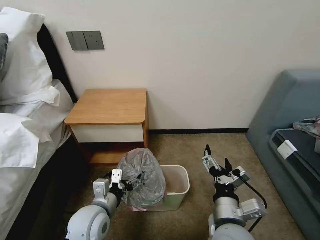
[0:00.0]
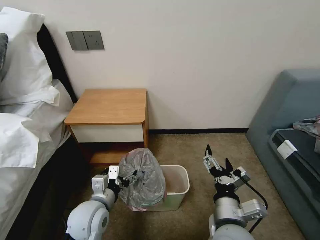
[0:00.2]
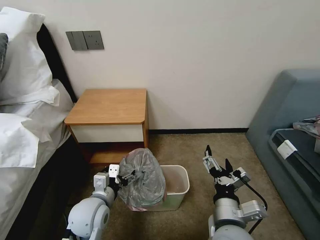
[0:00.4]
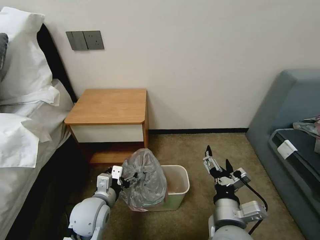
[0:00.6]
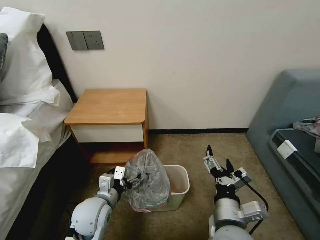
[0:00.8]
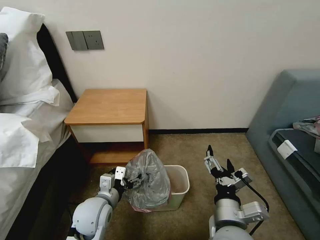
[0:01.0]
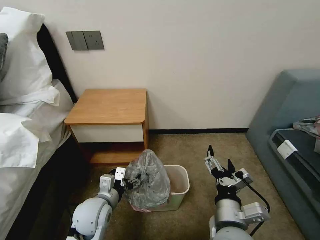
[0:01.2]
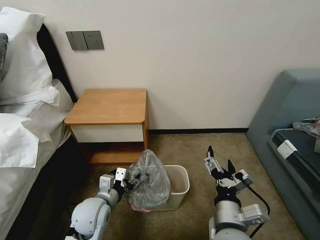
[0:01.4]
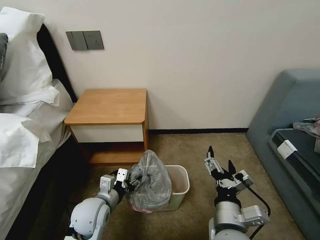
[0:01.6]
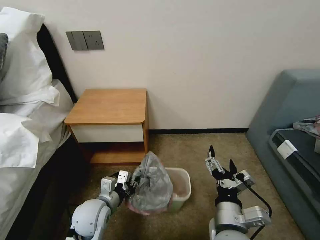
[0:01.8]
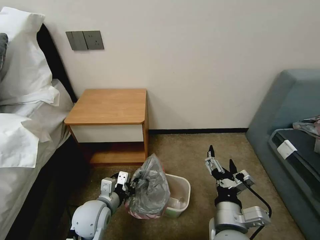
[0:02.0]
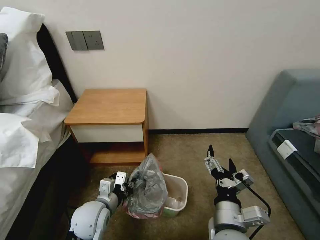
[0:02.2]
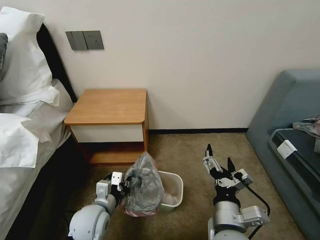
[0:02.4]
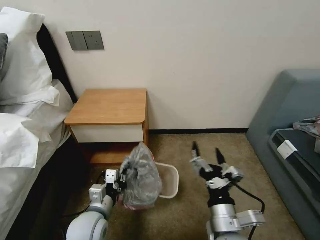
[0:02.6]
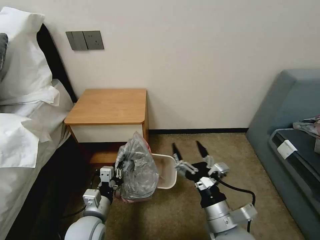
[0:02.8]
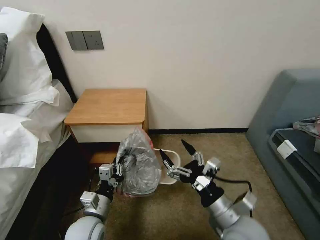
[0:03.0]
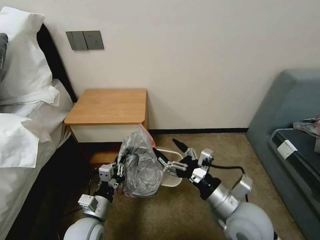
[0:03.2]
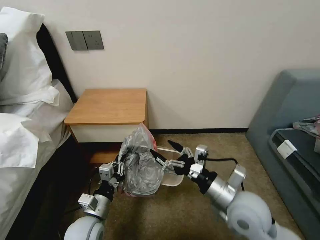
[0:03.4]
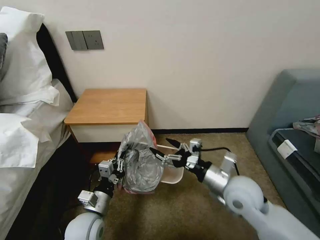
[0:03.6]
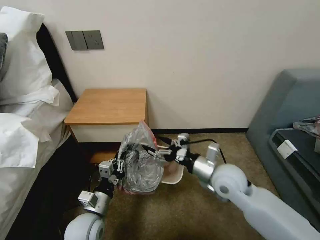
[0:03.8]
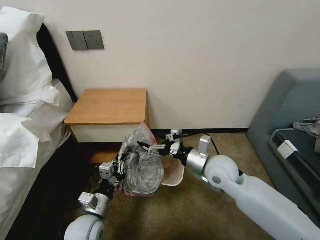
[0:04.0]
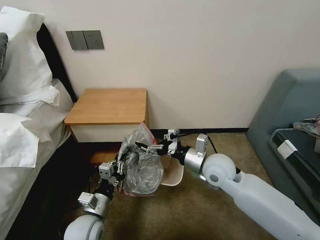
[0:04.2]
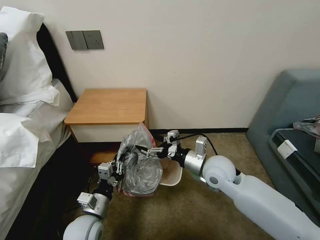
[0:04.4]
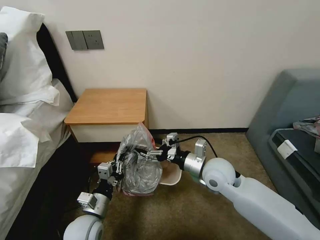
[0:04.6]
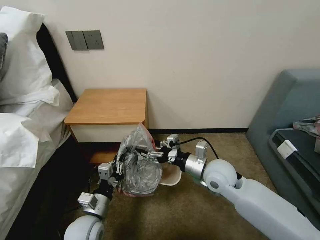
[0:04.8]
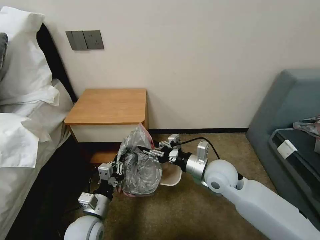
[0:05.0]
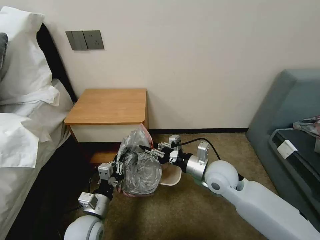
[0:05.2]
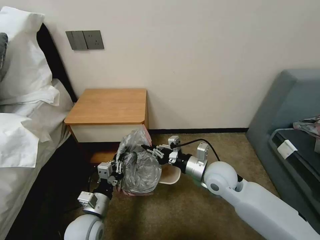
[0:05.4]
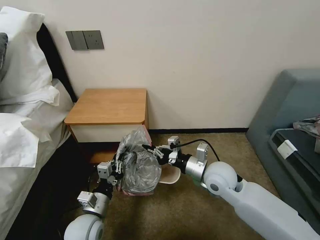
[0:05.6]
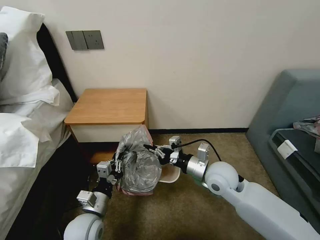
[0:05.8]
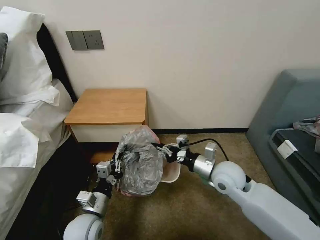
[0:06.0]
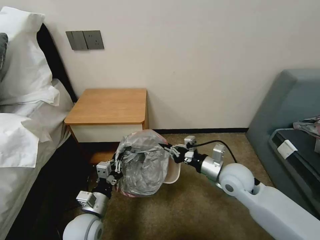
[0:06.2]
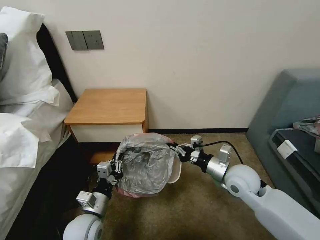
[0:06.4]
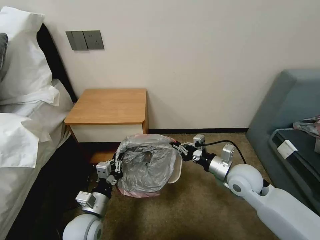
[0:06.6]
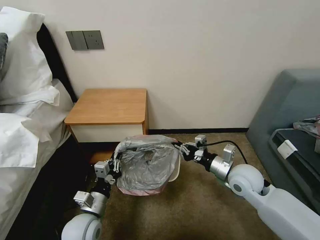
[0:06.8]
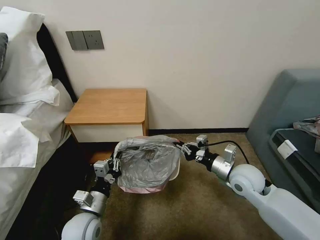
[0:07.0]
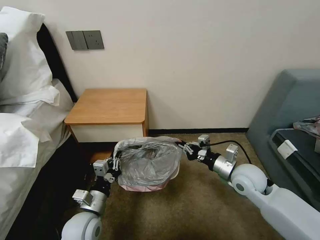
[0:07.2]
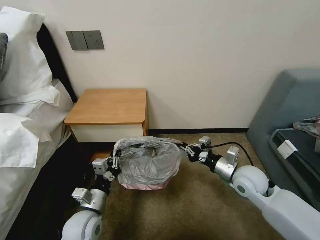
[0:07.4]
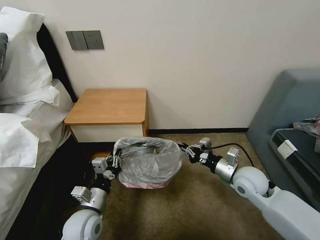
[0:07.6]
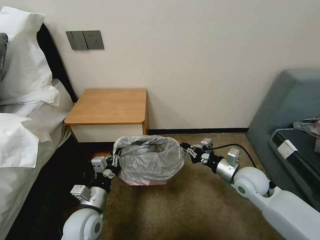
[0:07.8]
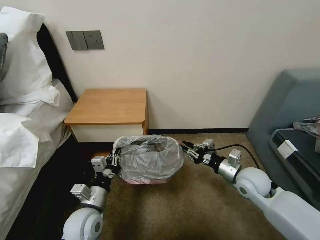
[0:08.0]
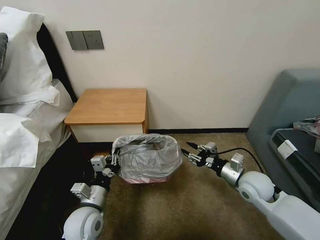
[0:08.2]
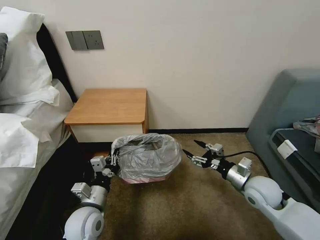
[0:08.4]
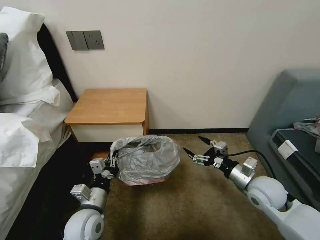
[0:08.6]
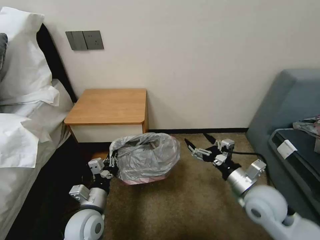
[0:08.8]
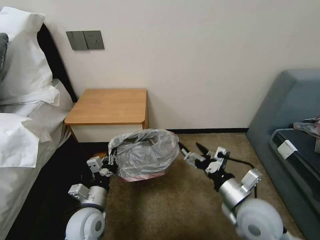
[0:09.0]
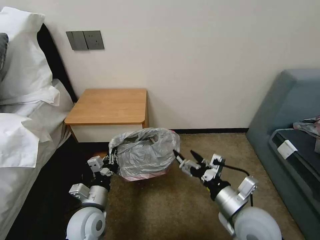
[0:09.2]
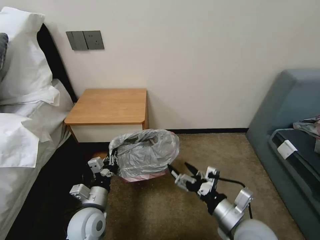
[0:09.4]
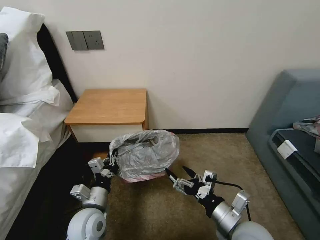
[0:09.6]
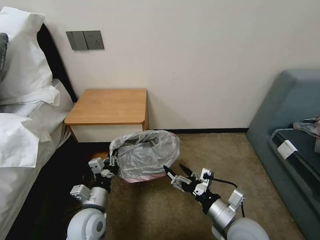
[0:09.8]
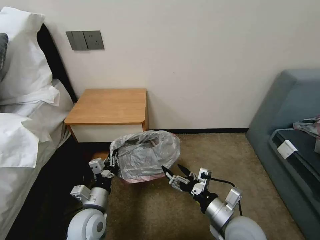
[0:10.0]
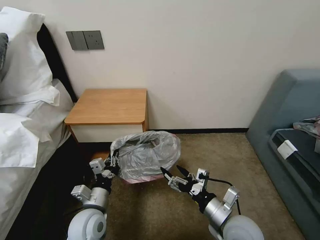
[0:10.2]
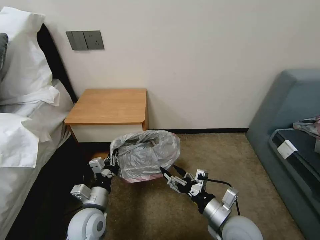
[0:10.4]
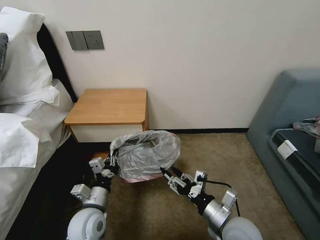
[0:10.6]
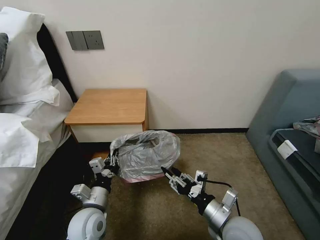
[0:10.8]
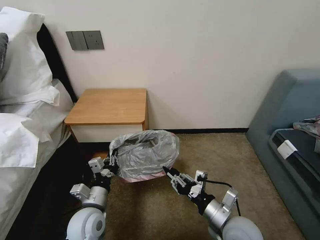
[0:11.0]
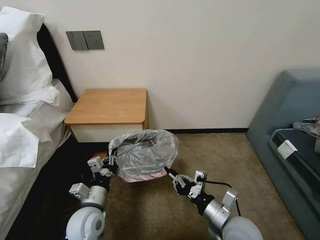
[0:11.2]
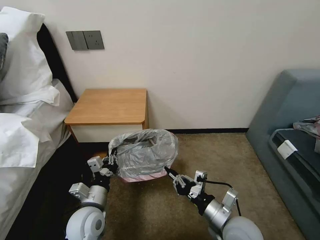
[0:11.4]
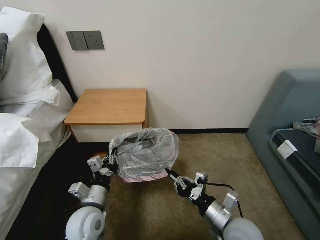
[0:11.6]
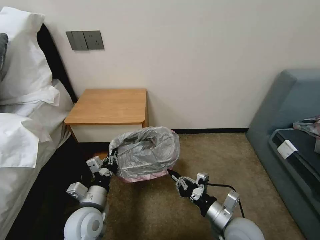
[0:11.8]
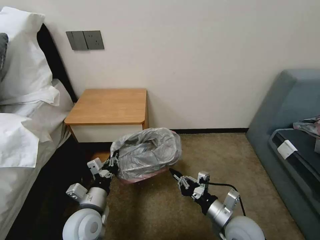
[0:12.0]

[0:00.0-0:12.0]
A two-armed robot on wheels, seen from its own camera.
Task of the whole recording: Pick up the garbage bag from the table and place it over the trash can.
0:00.0 to 0:01.6: The left gripper closes its fingers.
0:01.6 to 0:03.0: The left gripper closes its fingers.
0:03.0 to 0:04.4: The right gripper shifts roughly 15 cm forward.
0:04.4 to 0:06.0: The right gripper closes.
0:06.0 to 0:07.6: The right gripper shifts approximately 10 cm to the right.
0:07.6 to 0:09.0: The right gripper travels backward by approximately 10 cm, and opens up.
0:09.0 to 0:10.4: The right gripper moves downward, approximately 5 cm.
0:10.4 to 0:12.0: The right gripper closes its fingers.

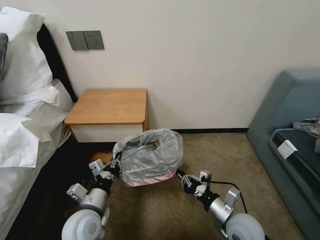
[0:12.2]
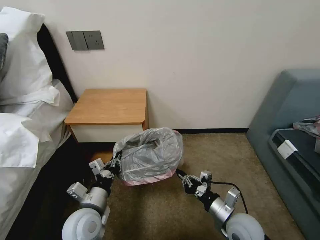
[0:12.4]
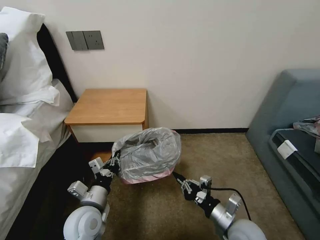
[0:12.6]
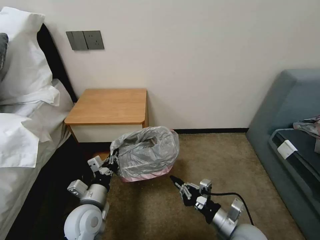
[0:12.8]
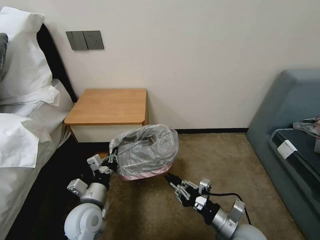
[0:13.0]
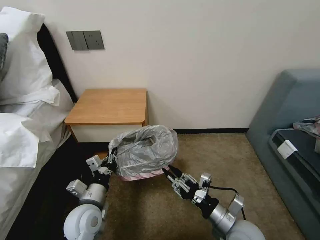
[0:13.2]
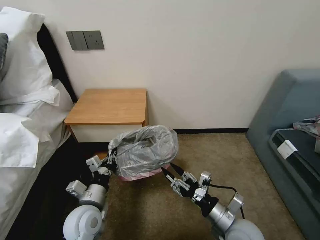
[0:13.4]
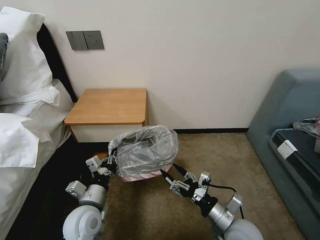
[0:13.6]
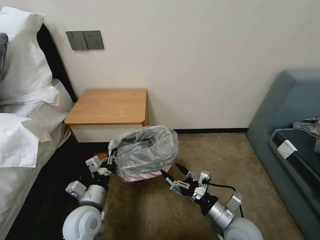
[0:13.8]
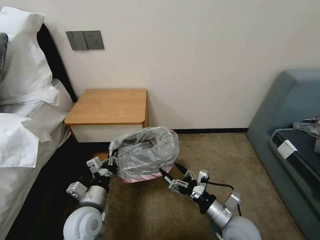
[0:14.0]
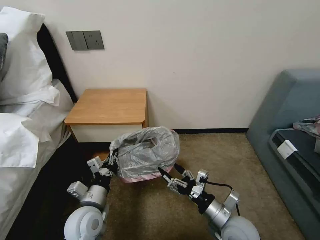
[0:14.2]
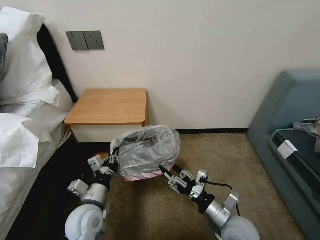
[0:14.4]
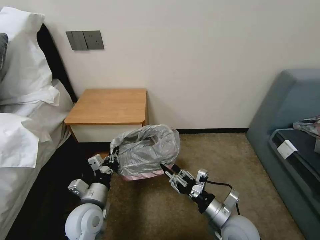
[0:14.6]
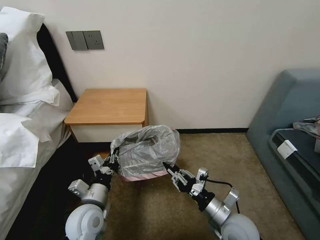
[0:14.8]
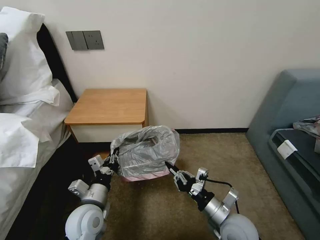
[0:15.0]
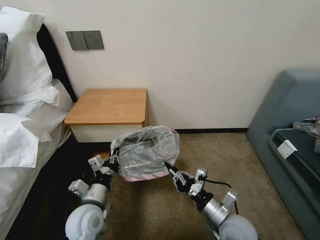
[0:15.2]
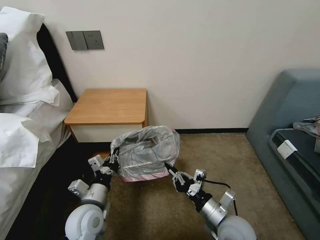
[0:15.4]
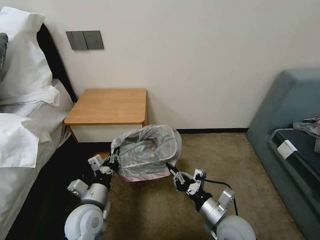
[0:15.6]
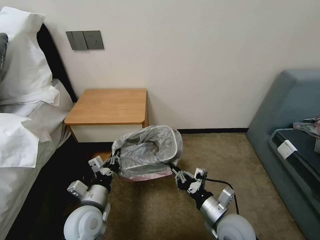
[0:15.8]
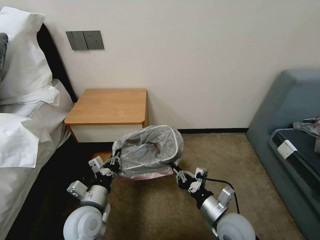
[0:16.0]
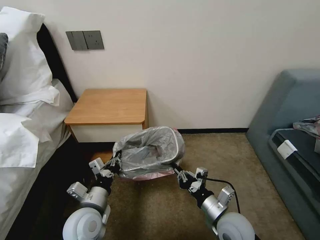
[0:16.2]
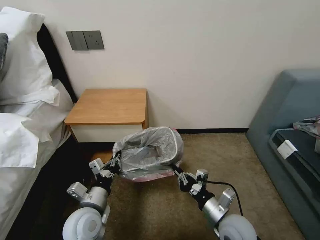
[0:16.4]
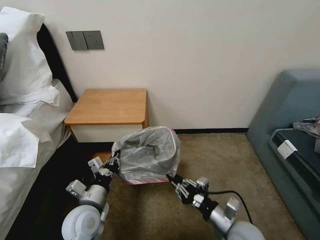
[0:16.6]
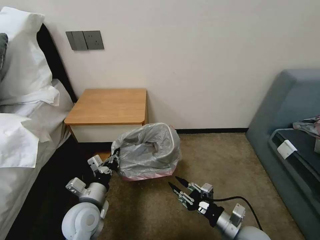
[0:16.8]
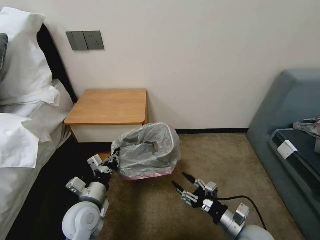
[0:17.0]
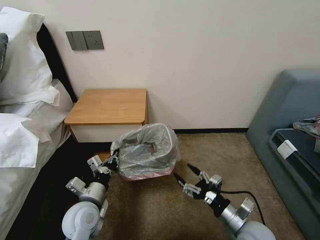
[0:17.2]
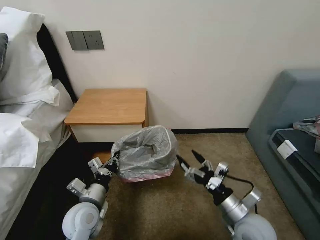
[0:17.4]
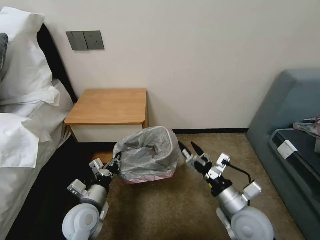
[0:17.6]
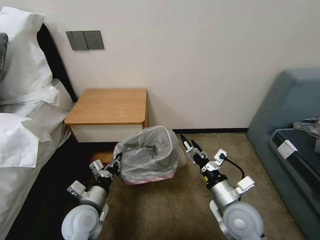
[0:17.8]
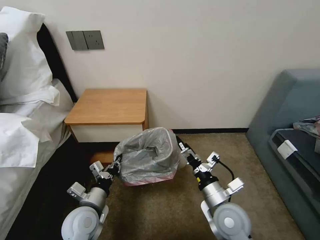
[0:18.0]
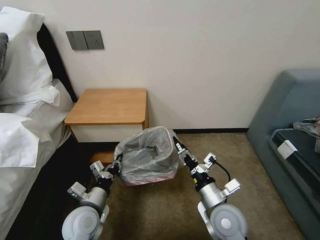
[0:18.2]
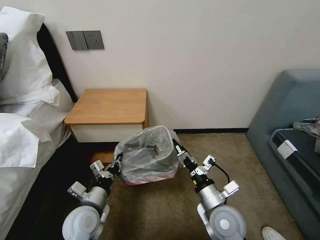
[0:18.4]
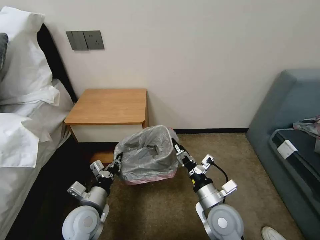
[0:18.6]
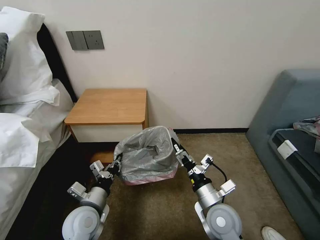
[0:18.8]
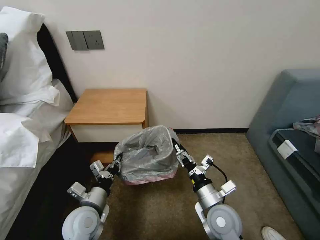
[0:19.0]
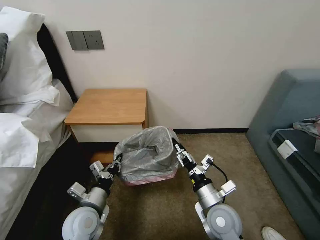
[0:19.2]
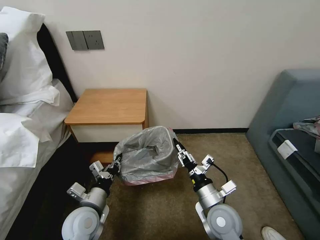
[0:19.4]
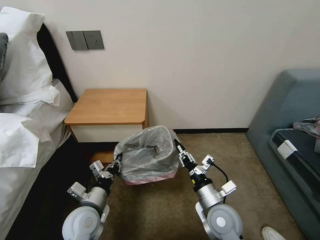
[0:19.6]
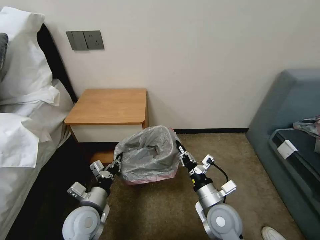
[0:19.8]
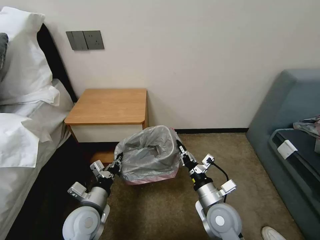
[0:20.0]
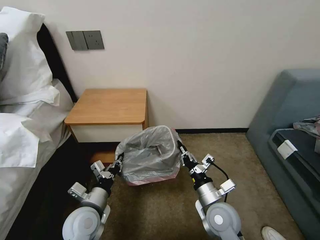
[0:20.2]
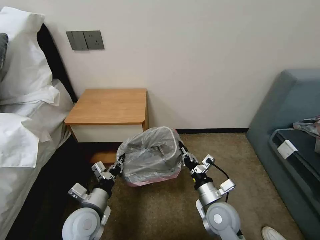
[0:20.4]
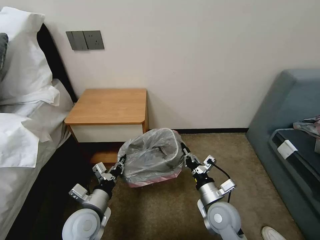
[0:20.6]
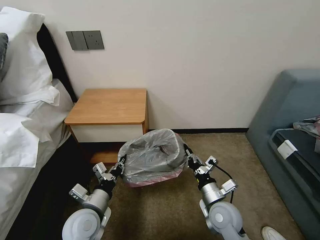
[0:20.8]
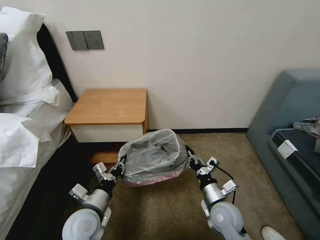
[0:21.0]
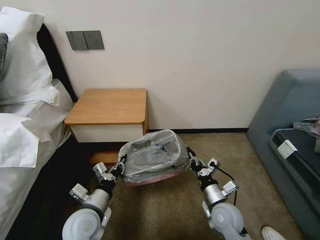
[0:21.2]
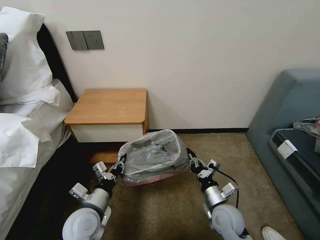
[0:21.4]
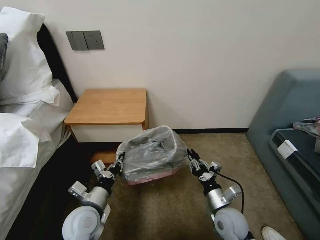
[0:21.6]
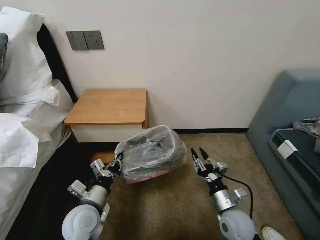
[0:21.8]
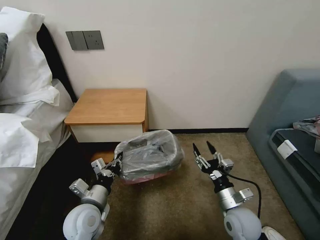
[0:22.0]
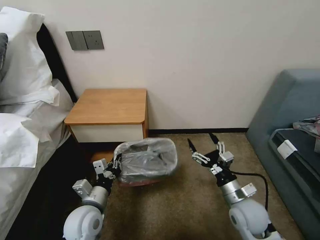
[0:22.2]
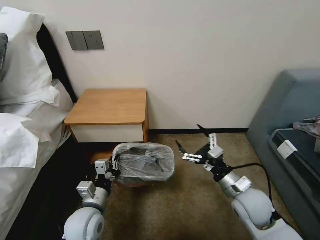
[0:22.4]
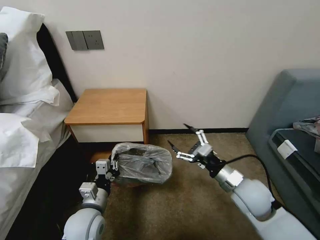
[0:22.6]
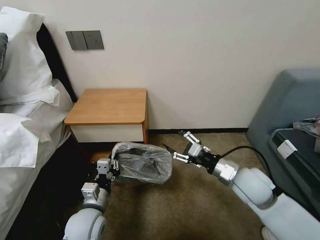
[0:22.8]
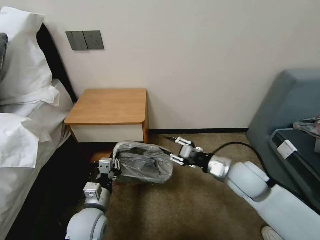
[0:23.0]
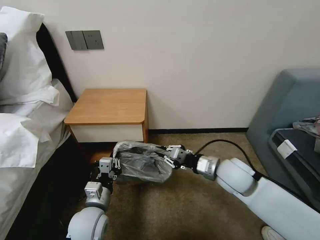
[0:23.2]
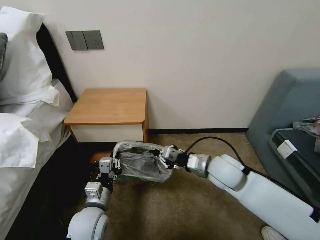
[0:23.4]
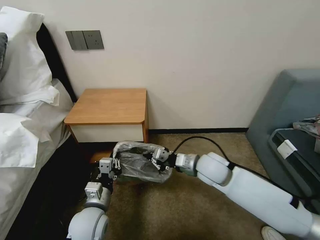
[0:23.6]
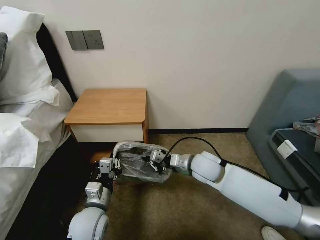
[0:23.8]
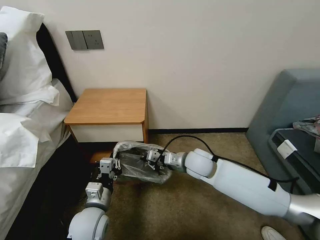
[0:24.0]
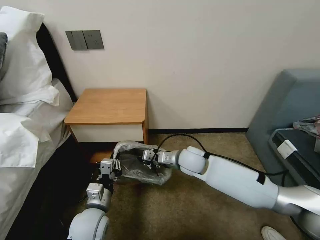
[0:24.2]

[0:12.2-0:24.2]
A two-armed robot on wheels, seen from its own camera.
Task of the whole recording: Pick up the garbage bag from the table and place it over the trash can.
0:12.2 to 0:13.8: The right gripper opens up.
0:13.8 to 0:15.2: The right gripper closes its fingers.
0:15.2 to 0:16.6: The grippers make only small movements.
0:16.6 to 0:18.2: The right gripper ends up some 5 cm from where it was, and opens.
0:18.2 to 0:19.8: The right gripper closes.
0:19.8 to 0:21.2: The right gripper is displaced downward by approximately 5 cm.
0:21.2 to 0:22.6: The right gripper goes roughly 10 cm upward, and opens up.
0:22.6 to 0:24.2: The right gripper shifts roughly 20 cm to the left and forward, and closes its fingers.
